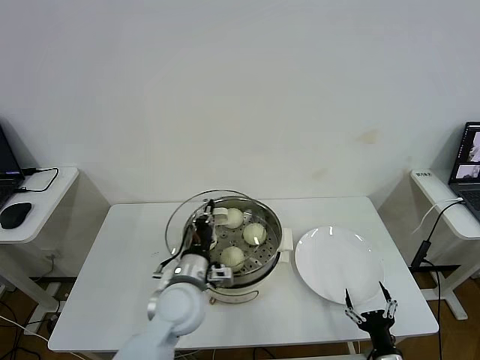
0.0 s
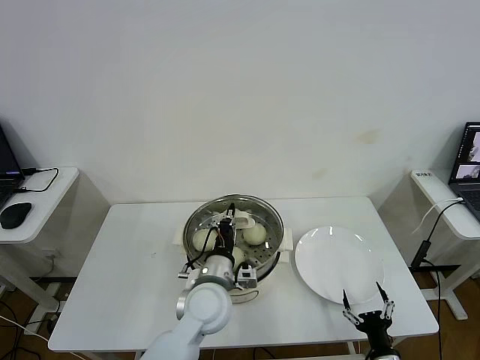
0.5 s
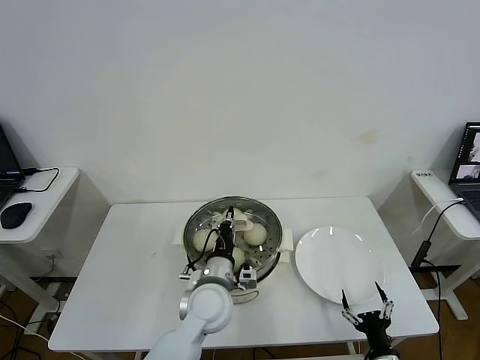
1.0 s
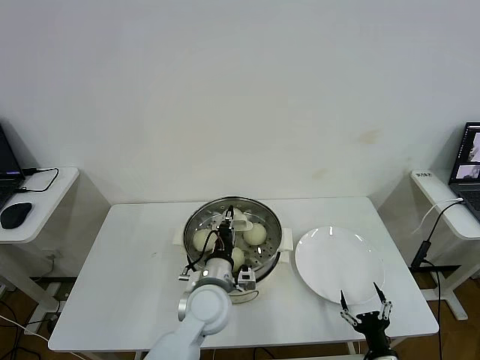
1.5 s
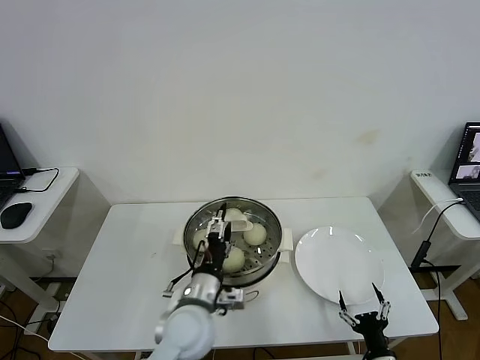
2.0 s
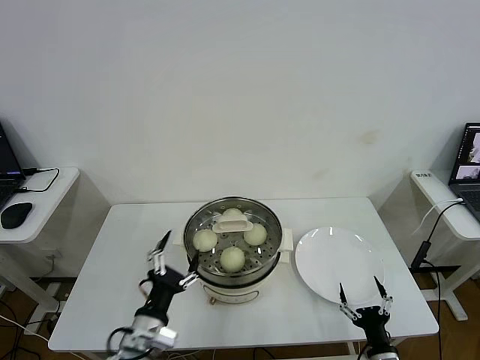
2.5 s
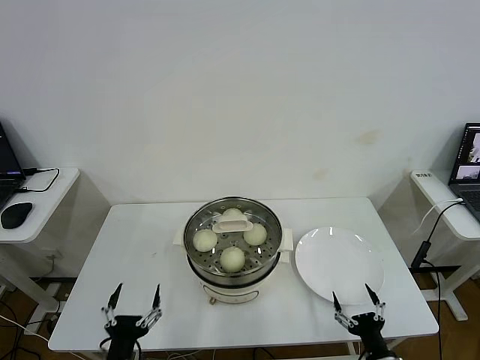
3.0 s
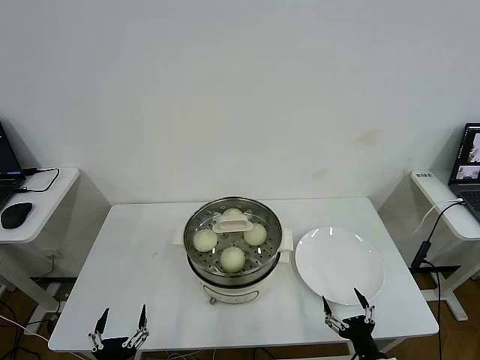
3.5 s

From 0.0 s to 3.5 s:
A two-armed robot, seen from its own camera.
From 0.0 s to 2.0 s: The left gripper opens its fingers.
From 2.0 s to 3.5 s: The left gripper travels backward, to the left and downward by roughly 30 cm.

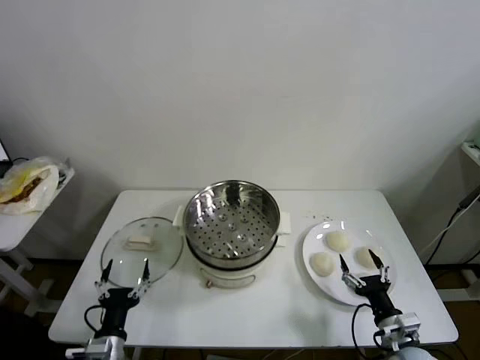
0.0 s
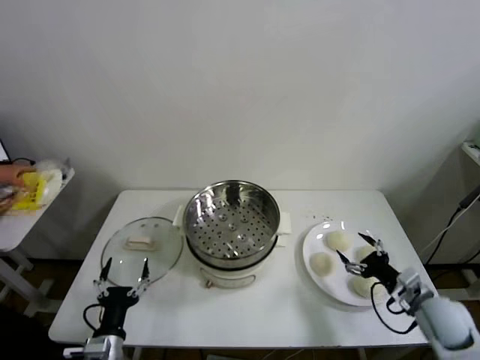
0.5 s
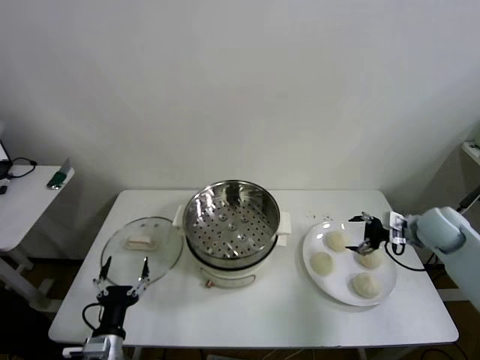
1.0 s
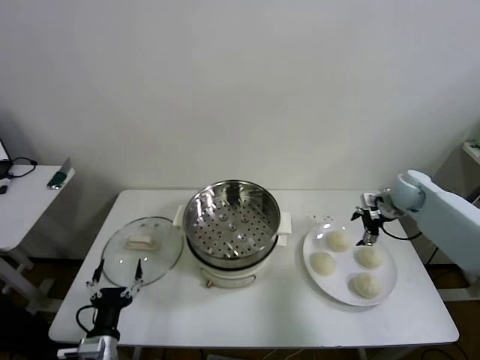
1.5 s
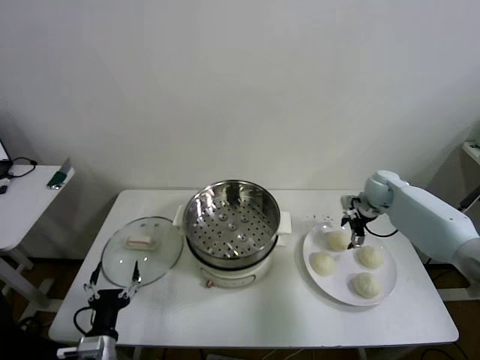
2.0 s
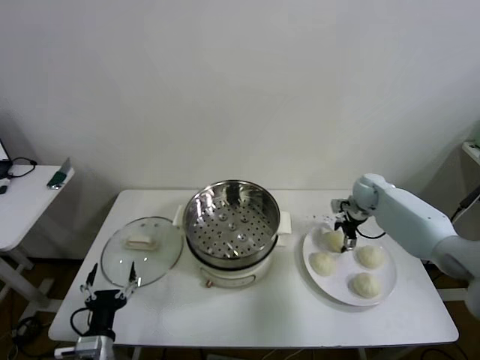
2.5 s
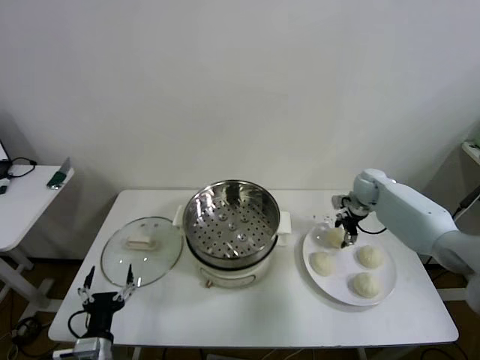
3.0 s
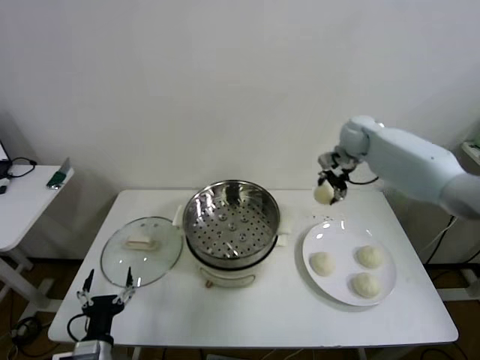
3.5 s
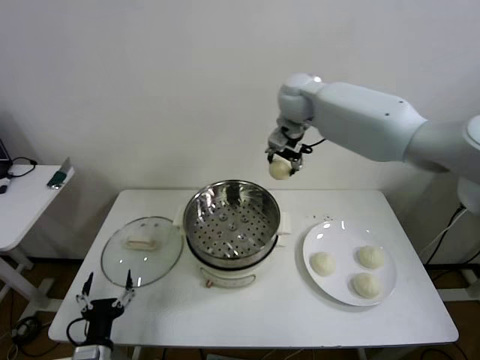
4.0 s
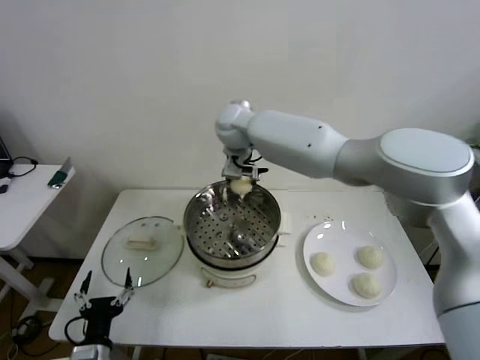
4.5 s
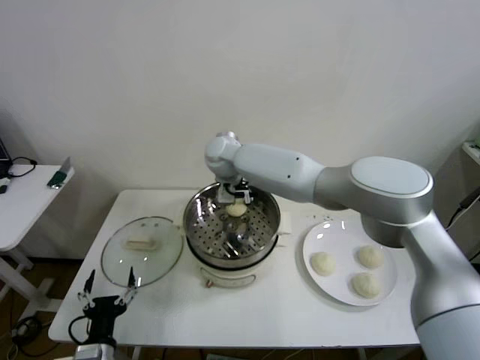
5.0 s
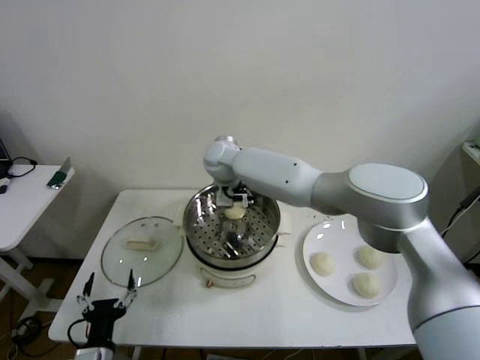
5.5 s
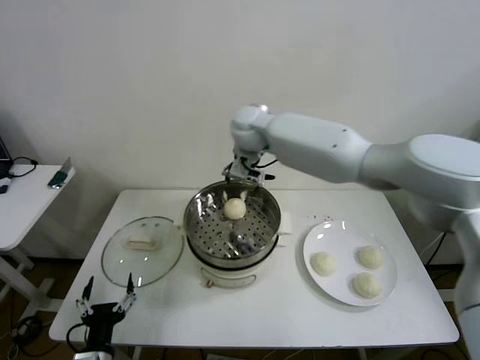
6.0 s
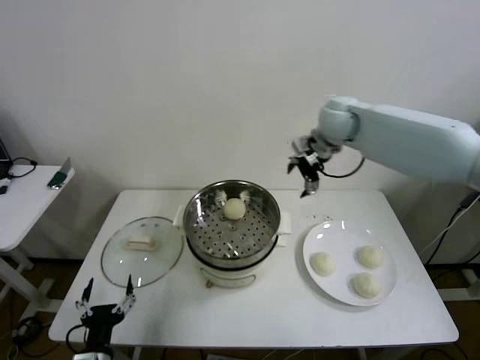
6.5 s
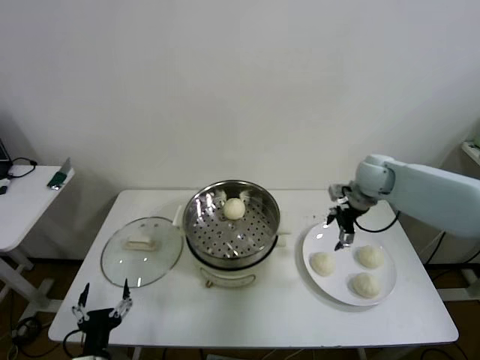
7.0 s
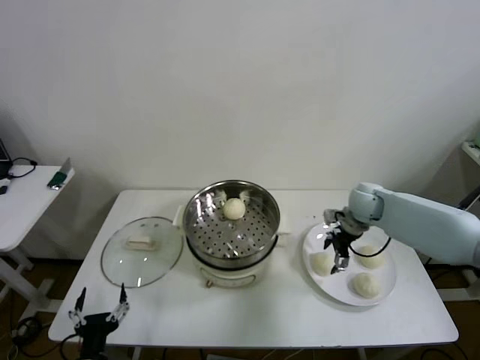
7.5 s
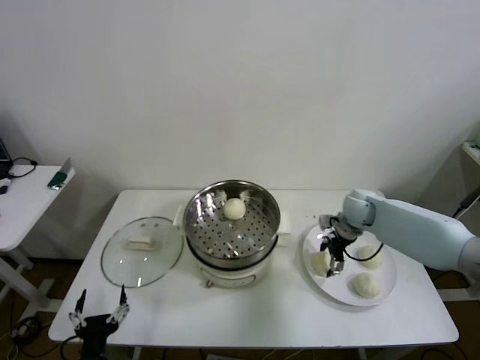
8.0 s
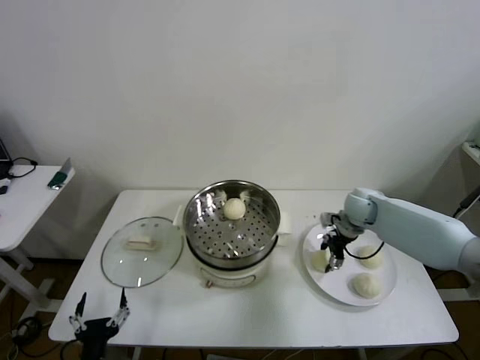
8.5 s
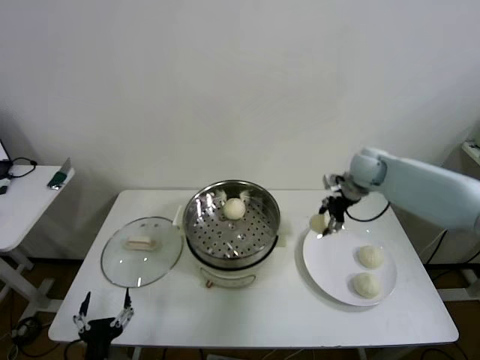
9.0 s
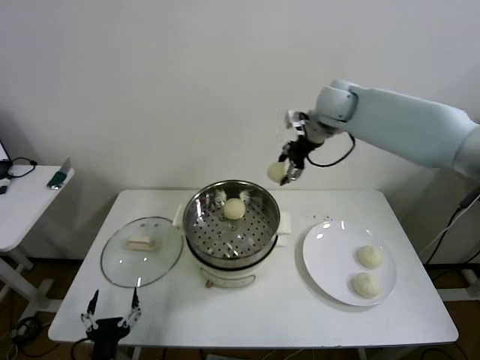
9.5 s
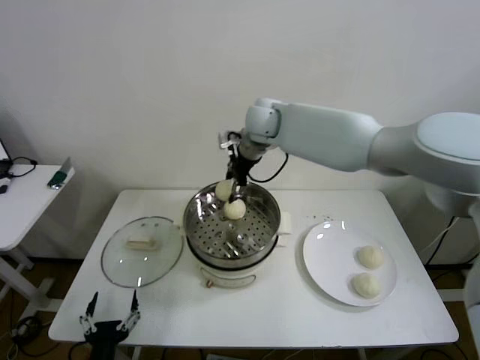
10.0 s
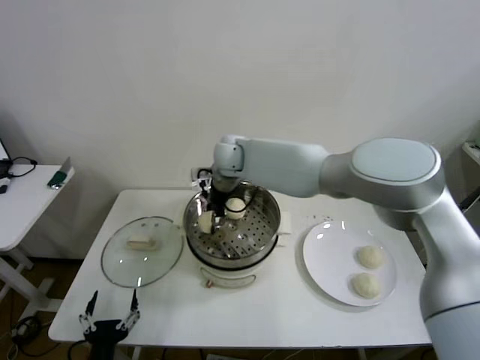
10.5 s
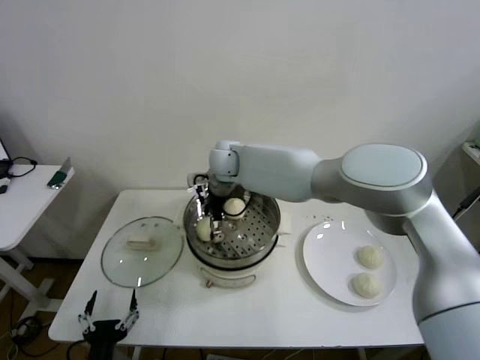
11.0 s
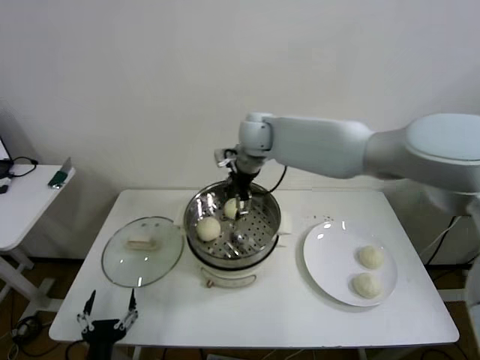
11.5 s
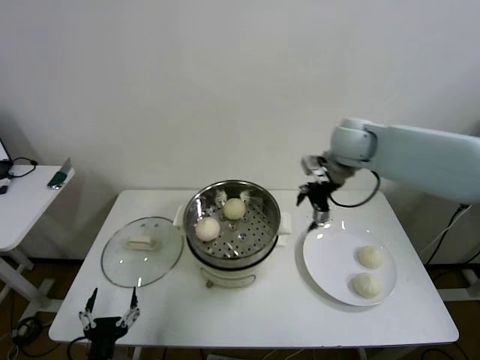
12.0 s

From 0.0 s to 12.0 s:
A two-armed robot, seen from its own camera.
Step, from 0.0 s to 2.5 s: Grasp the baozi in the plate with right gripper.
Step, from 3.0 s to 5.0 s: Place the baozi on the steamer with right gripper.
Step, from 5.5 s to 8.0 s: Grasp the baozi in the plate with right gripper.
Step, from 8.5 s to 10.5 s: Place the baozi on the steamer with right gripper.
From 2.0 s to 4.0 s: The right gripper heads to the left and upward, covering approximately 40 cm, and closes up.
From 4.0 s to 6.0 s: The right gripper travels to the left and back again, about 15 cm each way, and opens.
From 6.0 s to 8.0 s: The right gripper heads to the right and downward, covering roughly 35 cm.
From 8.0 s to 10.0 s: The right gripper shifts some 35 cm to the left and upward, and closes its fingers.
From 10.0 s to 12.0 s: The right gripper travels to the right by roughly 20 cm, and opens.

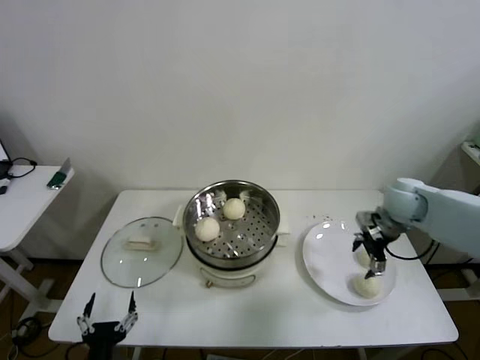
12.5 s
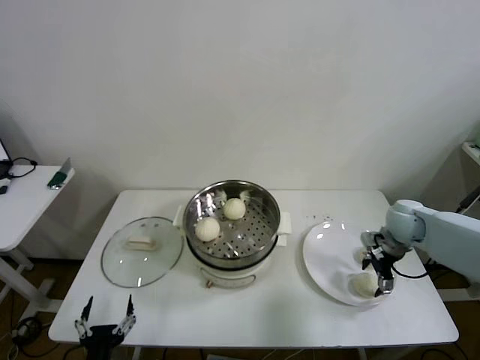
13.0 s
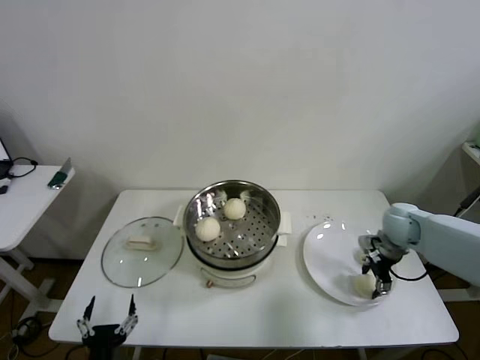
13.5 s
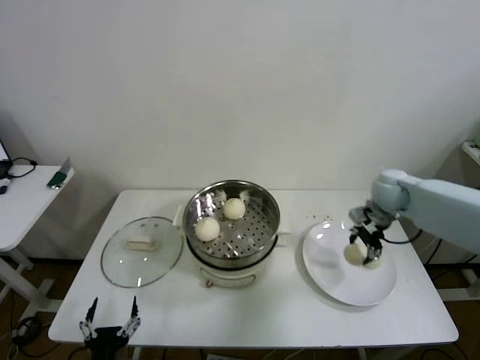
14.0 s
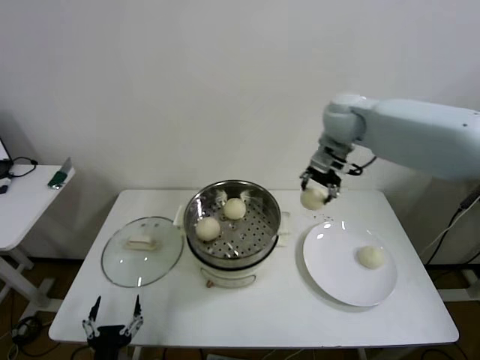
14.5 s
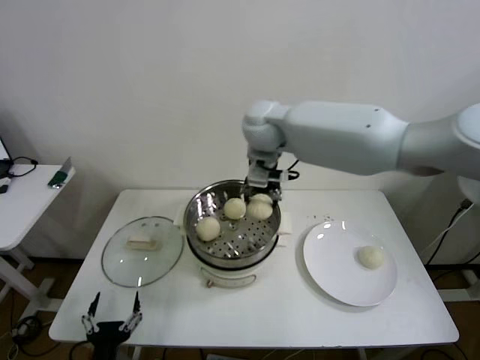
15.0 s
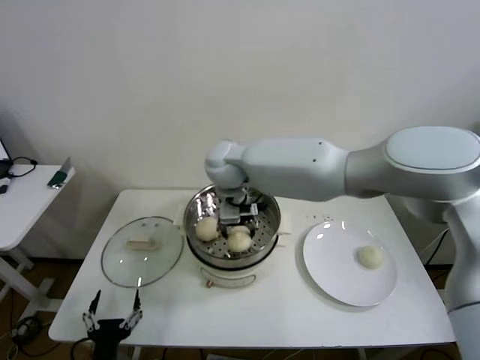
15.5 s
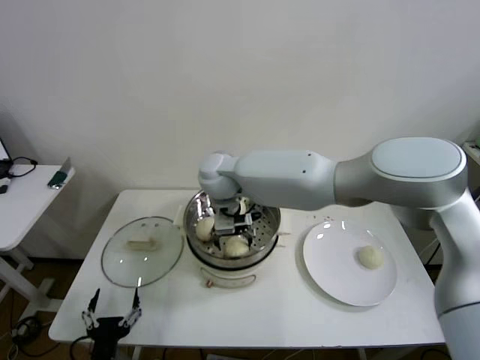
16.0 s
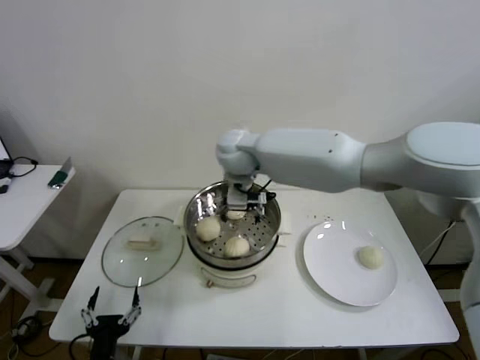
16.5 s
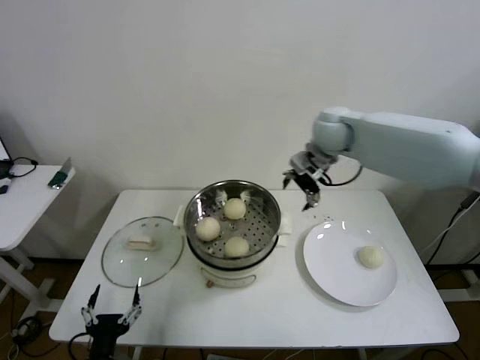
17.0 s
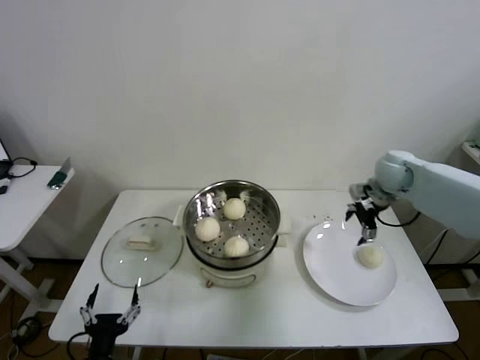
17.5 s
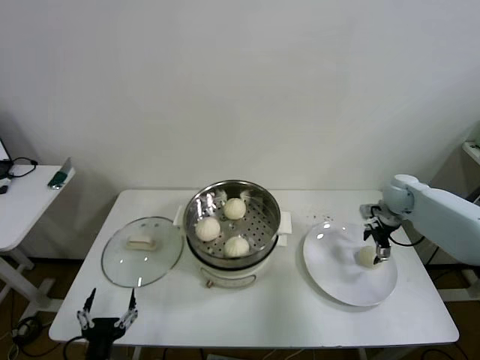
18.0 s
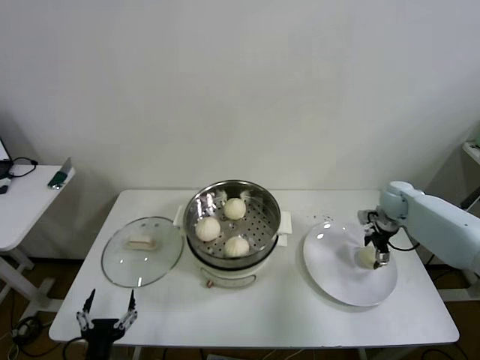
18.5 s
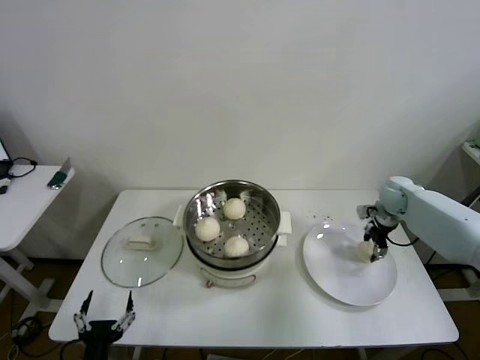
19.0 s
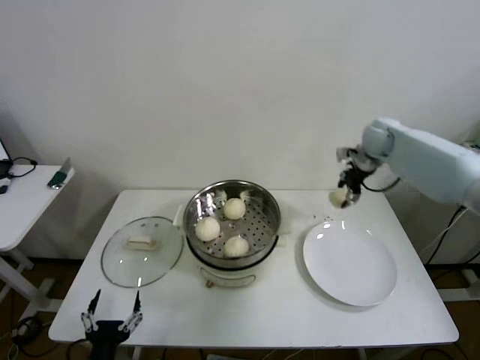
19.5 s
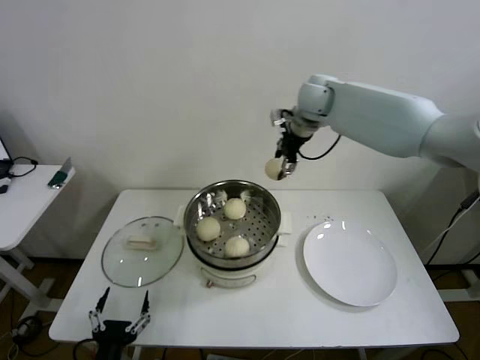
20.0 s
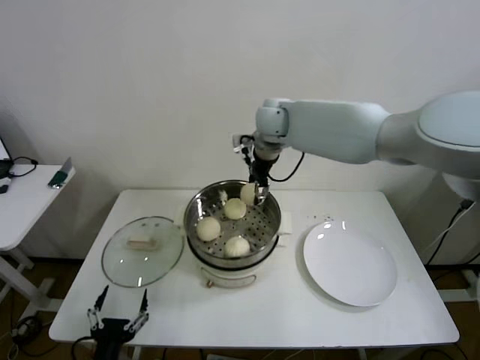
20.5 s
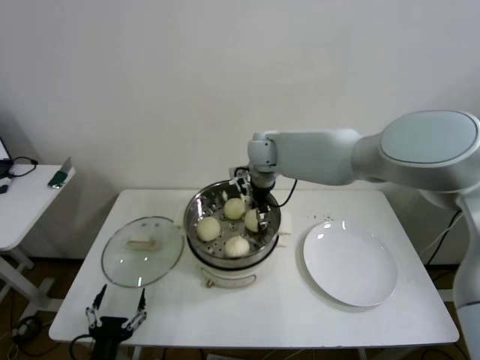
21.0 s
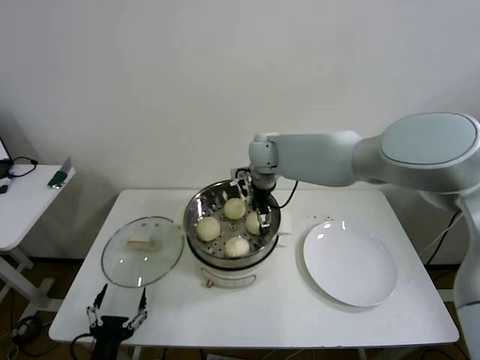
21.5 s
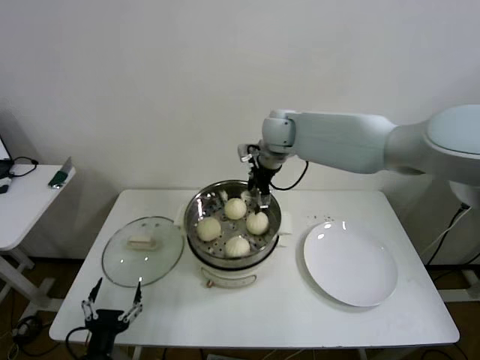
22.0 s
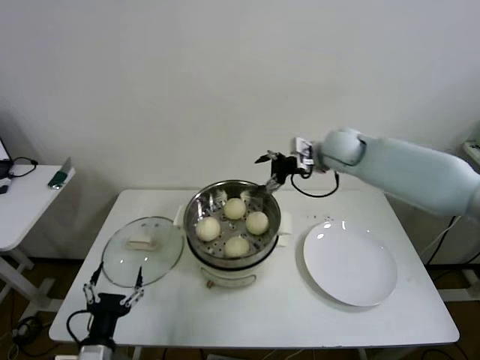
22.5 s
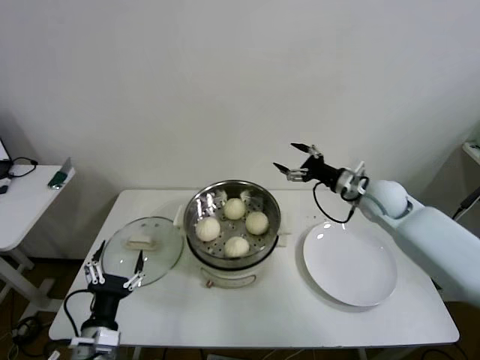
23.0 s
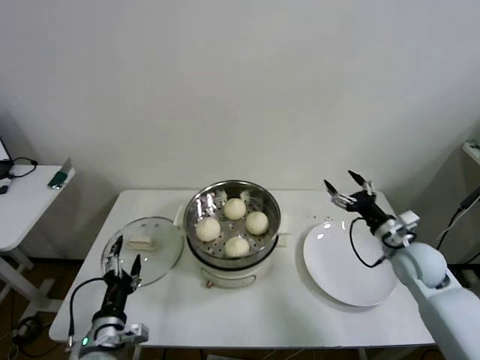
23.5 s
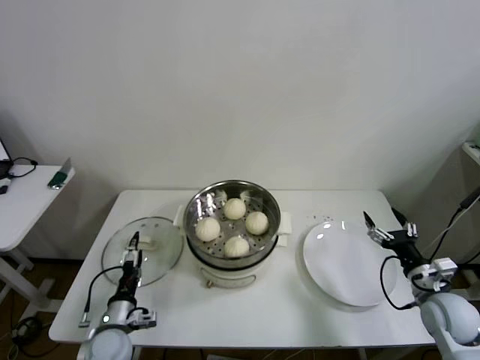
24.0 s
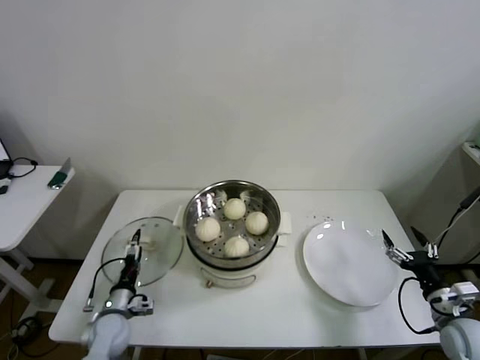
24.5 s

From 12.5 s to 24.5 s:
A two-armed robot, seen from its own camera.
Step, from 13.5 s to 15.5 s: Place the baozi on the steamer with right gripper.
Step, from 16.5 s to 18.5 s: Grasp the baozi in the plate with right gripper.
Step, from 19.0 s to 21.0 s: Place the baozi on the steamer with right gripper.
From 12.5 s to 14.5 s: The right gripper moves upward, to the left and forward, approximately 25 cm, and closes.
From 14.5 s to 16.5 s: The right gripper heads to the left, covering approximately 20 cm, and opens.
From 16.5 s to 18.5 s: The right gripper goes approximately 50 cm to the right and downward.
From 18.5 s to 20.5 s: The right gripper travels to the left and upward by approximately 40 cm, and closes.
From 20.5 s to 22.5 s: The right gripper goes approximately 15 cm to the right, and opens up.
From 22.5 s to 24.5 s: The right gripper goes approximately 50 cm backward, downward and to the right, while the left gripper travels forward and downward by roughly 20 cm.
